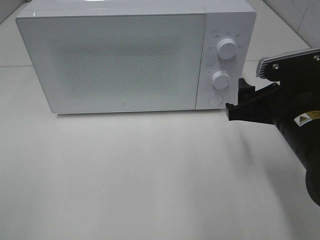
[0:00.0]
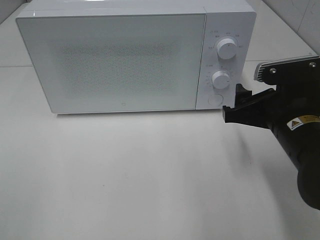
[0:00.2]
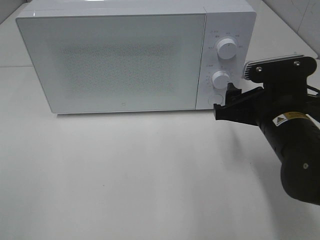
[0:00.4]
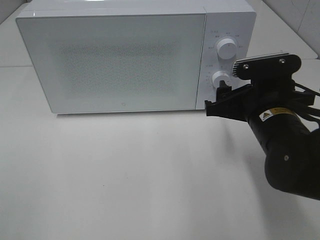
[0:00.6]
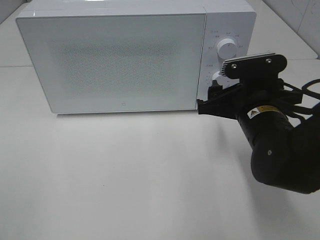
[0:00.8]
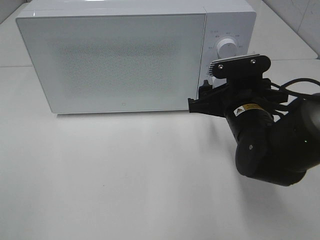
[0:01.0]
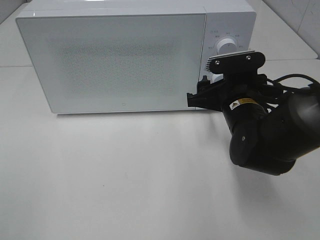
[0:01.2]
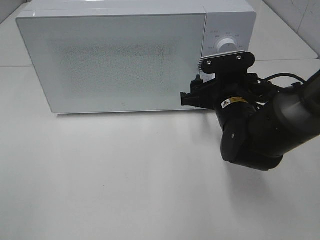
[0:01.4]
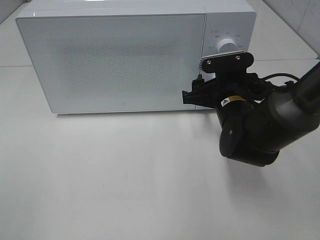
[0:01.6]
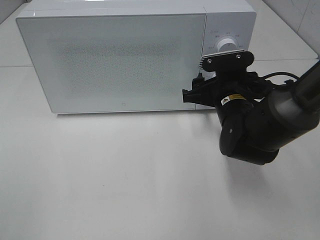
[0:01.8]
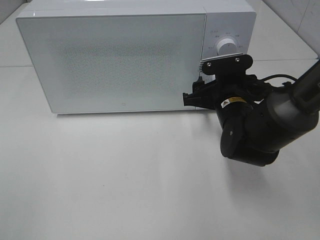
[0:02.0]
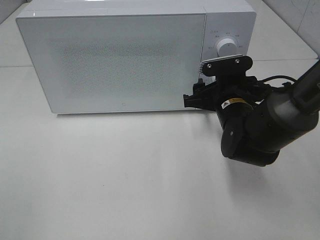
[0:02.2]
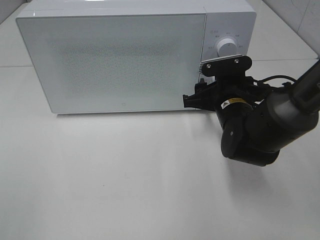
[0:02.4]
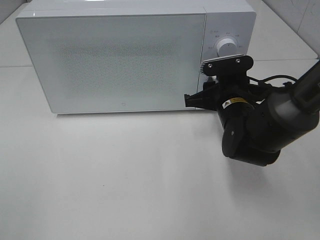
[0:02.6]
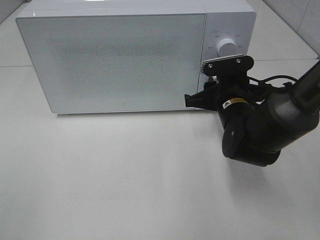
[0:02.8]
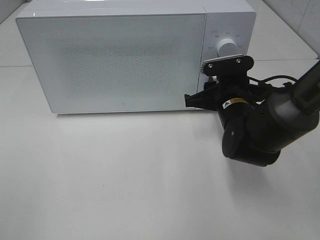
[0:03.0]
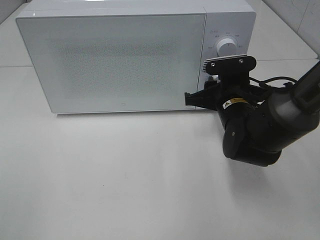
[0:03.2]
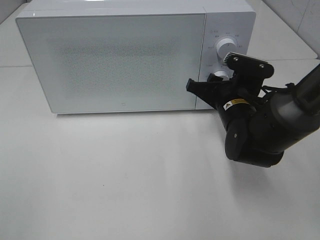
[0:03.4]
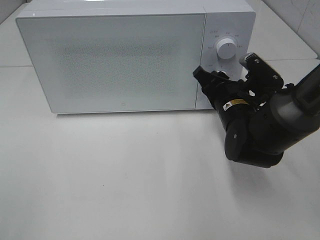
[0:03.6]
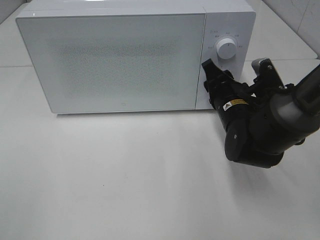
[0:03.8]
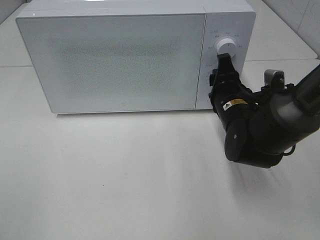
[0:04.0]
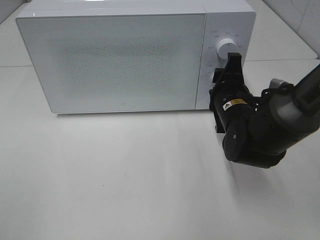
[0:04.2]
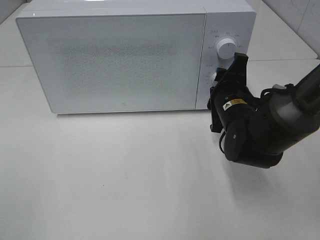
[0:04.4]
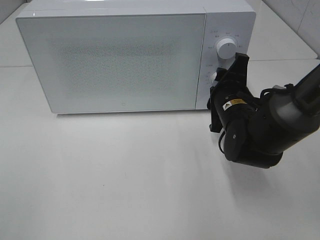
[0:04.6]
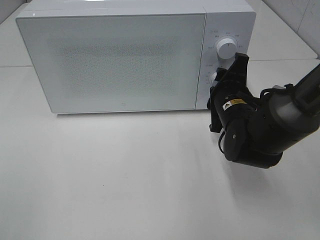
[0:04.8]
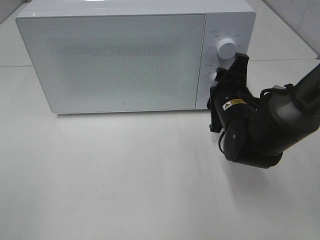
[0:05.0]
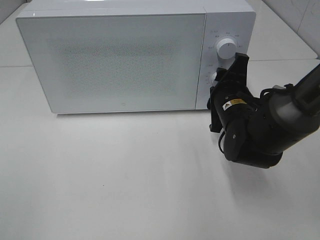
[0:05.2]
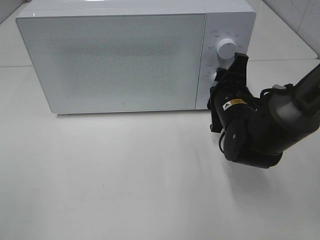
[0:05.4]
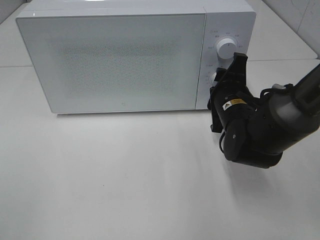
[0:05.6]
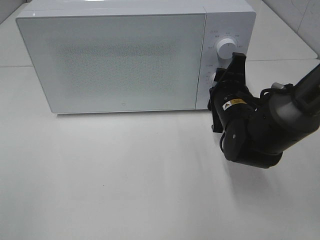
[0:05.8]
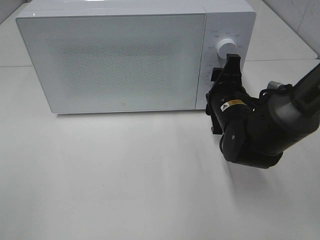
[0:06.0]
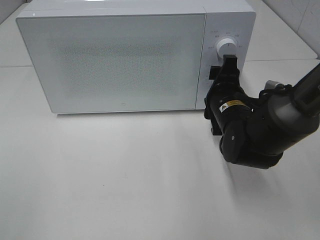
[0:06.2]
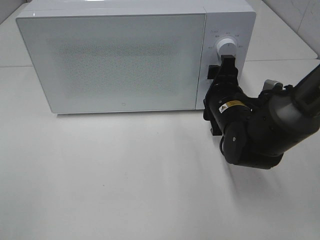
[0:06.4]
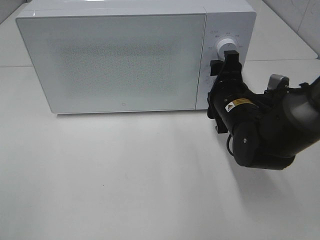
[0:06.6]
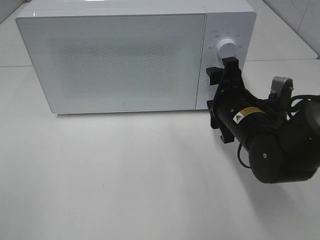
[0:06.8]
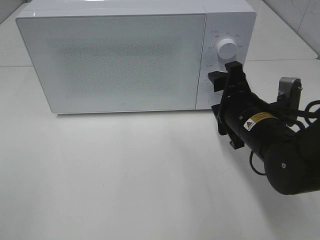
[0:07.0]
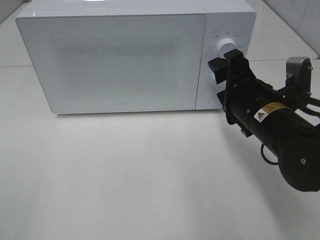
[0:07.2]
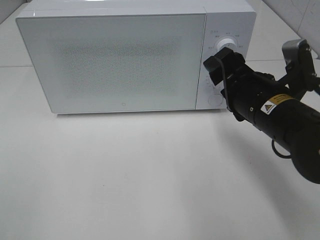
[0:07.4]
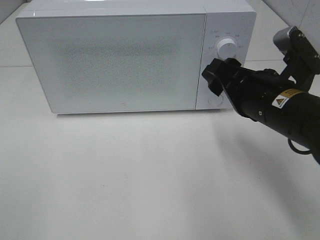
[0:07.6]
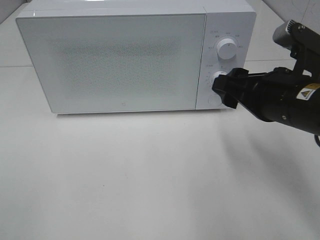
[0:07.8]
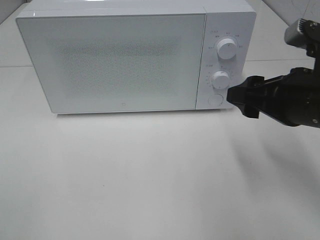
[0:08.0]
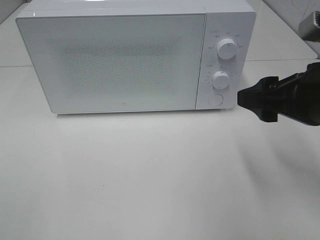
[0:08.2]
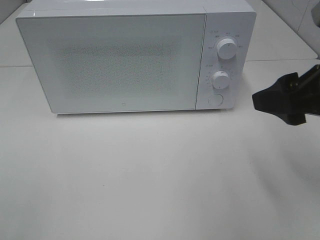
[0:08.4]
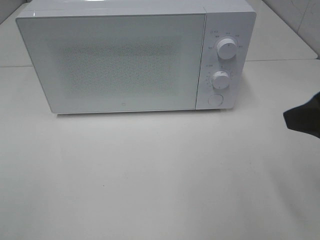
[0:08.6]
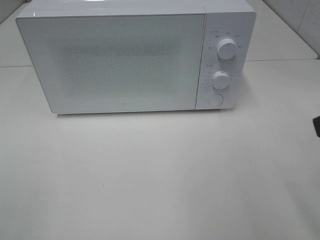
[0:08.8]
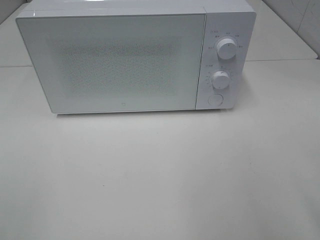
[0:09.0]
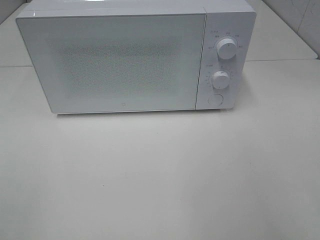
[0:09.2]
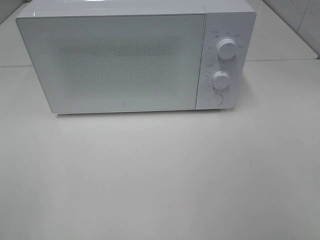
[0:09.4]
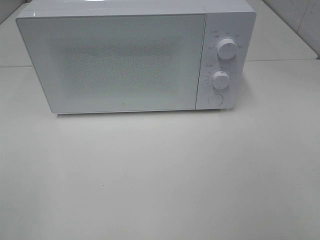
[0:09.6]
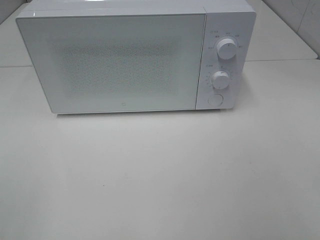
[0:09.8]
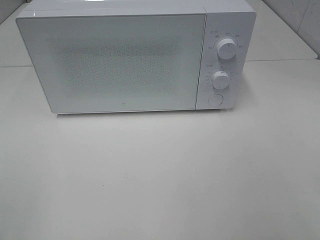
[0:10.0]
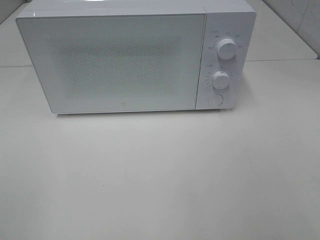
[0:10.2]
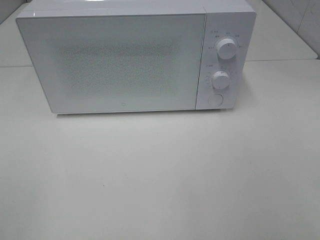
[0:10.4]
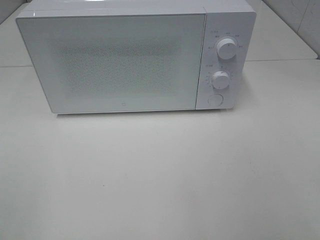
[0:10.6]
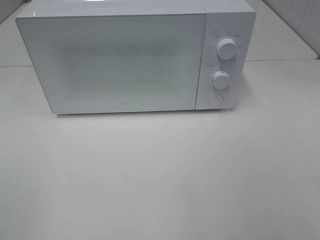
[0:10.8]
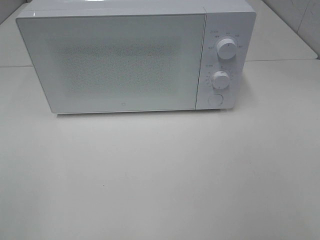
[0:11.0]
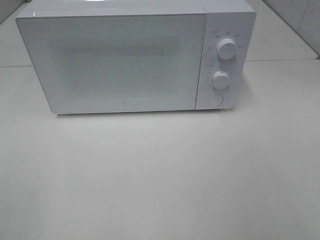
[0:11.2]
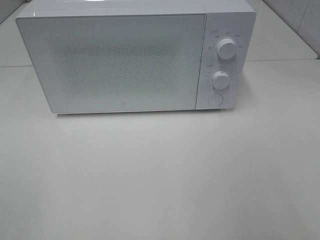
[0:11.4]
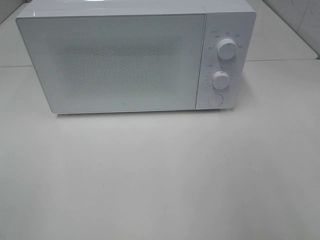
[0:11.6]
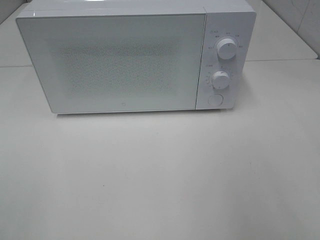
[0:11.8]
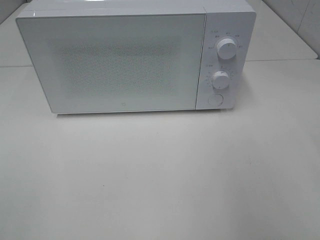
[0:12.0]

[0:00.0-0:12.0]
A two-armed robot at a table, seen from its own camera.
Task of the whole recording: Heat the burger.
Step, 0:00.0 to 0:06.0: Right hand: twist timer button.
0:00.0 to 0:01.6: The right gripper travels forward, to the left and downward by about 10 cm.
0:01.6 to 0:03.0: The right gripper closes up.
0:04.4 to 0:06.0: The grippers move only a little.
0:06.0 to 0:07.6: The right gripper shifts about 10 cm backward and upward.
0:07.6 to 0:09.0: The right gripper heads backward, upward and to the right, covering approximately 20 cm.

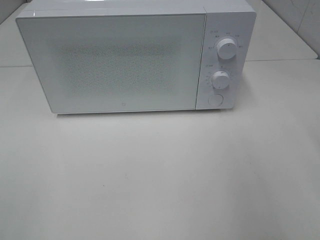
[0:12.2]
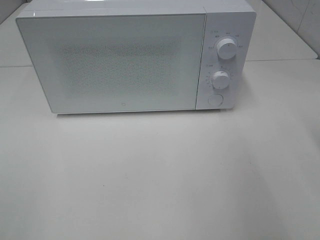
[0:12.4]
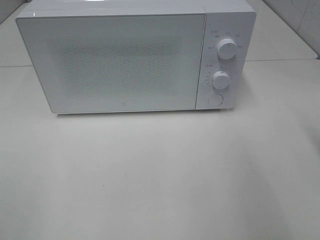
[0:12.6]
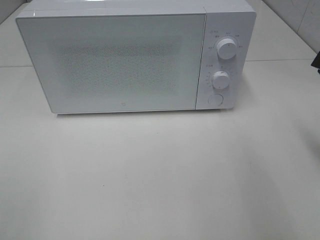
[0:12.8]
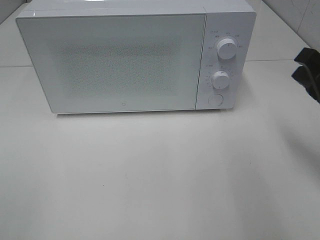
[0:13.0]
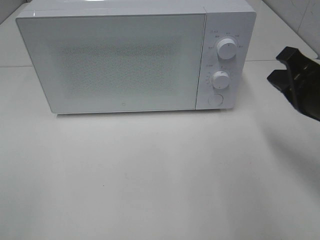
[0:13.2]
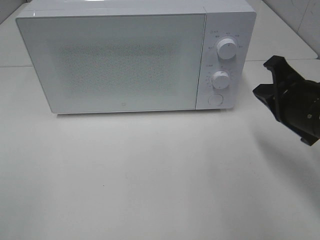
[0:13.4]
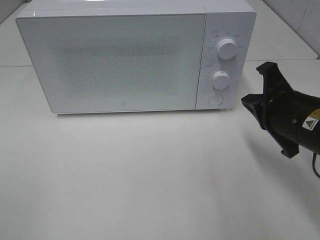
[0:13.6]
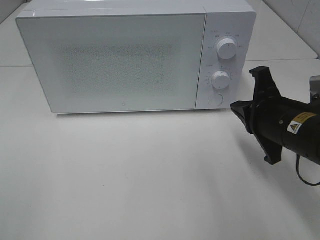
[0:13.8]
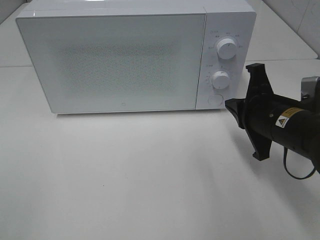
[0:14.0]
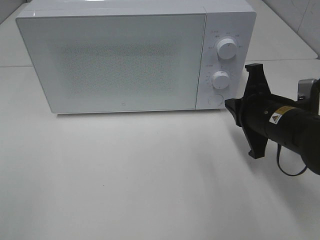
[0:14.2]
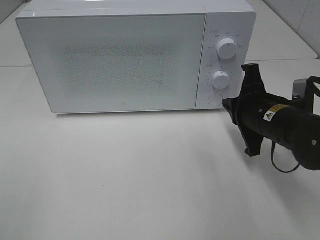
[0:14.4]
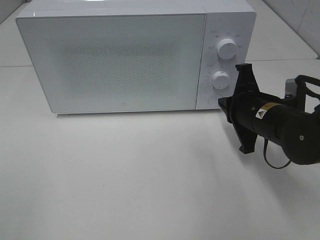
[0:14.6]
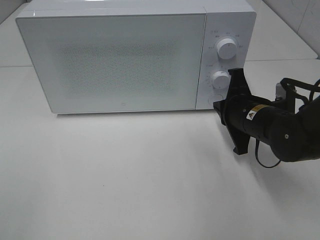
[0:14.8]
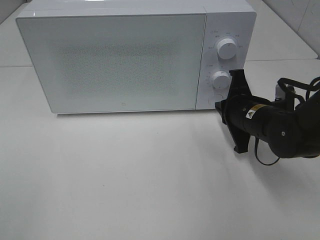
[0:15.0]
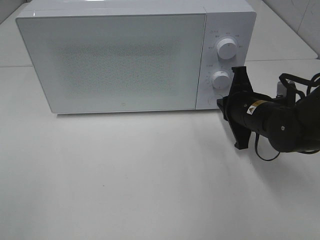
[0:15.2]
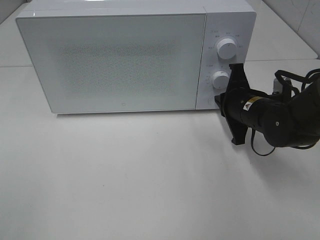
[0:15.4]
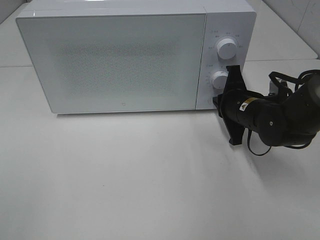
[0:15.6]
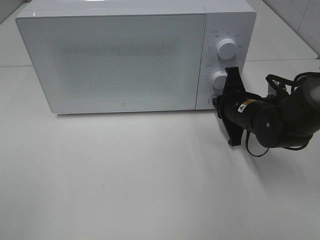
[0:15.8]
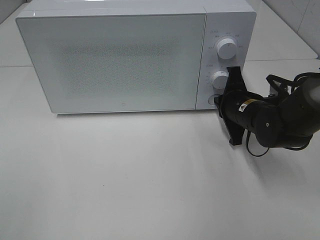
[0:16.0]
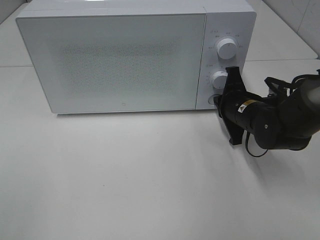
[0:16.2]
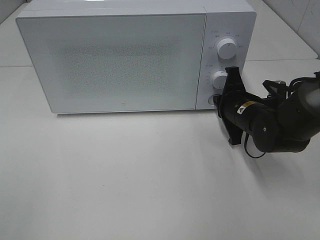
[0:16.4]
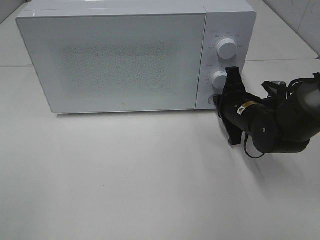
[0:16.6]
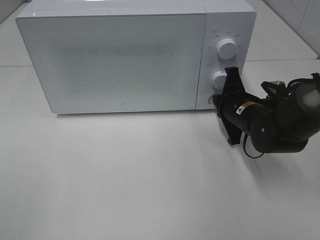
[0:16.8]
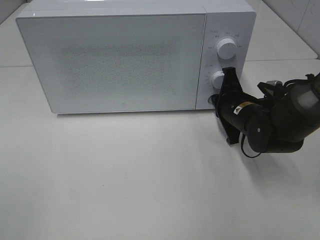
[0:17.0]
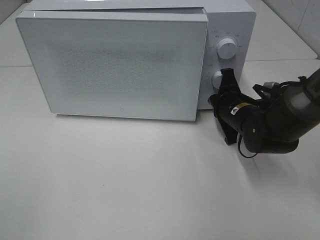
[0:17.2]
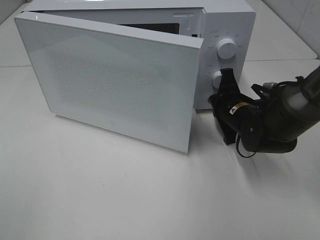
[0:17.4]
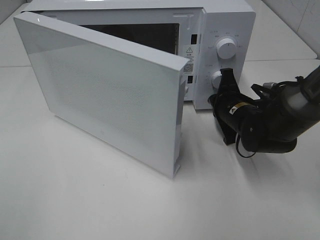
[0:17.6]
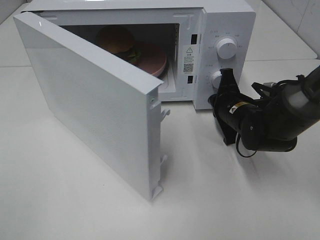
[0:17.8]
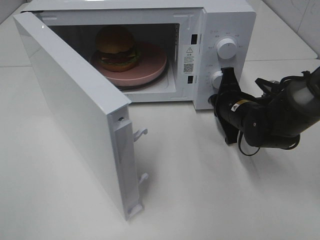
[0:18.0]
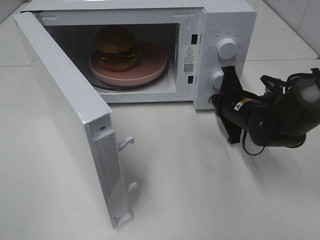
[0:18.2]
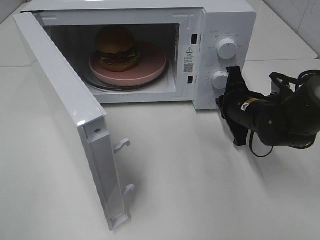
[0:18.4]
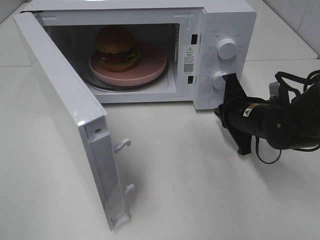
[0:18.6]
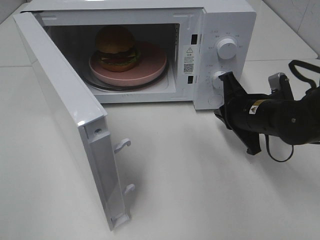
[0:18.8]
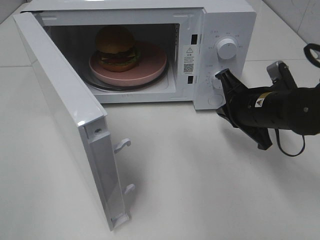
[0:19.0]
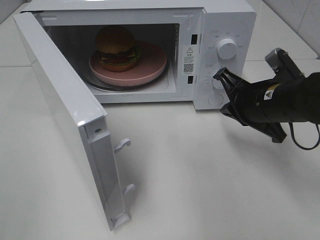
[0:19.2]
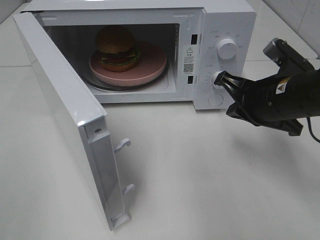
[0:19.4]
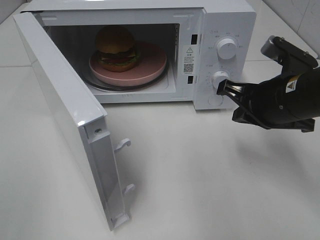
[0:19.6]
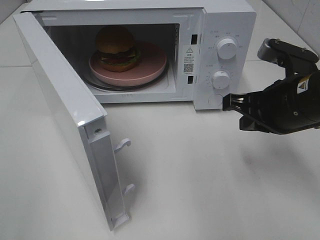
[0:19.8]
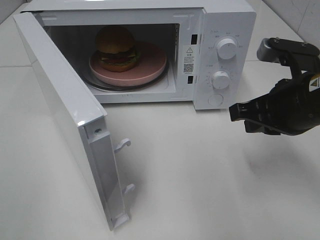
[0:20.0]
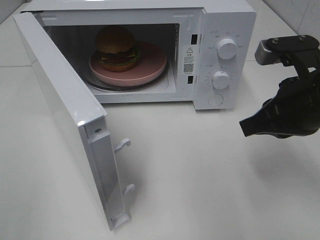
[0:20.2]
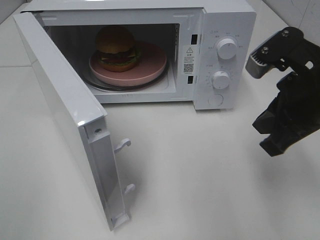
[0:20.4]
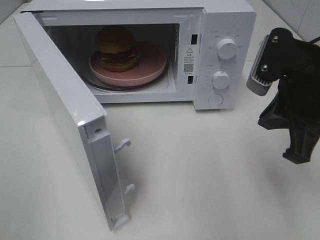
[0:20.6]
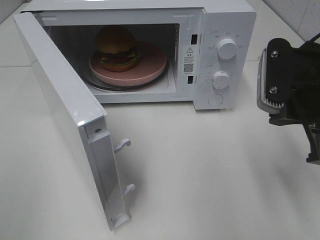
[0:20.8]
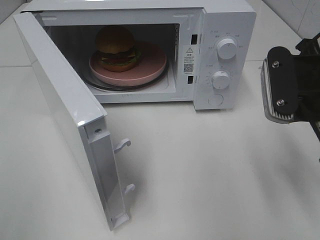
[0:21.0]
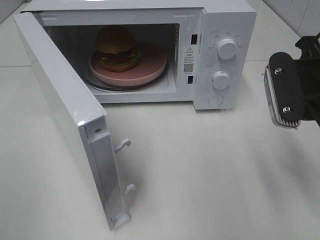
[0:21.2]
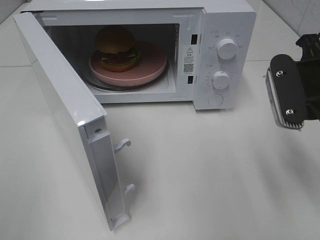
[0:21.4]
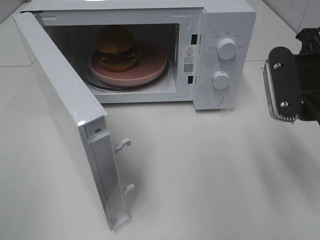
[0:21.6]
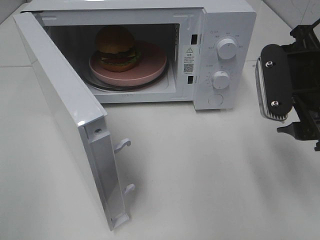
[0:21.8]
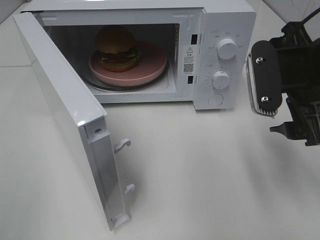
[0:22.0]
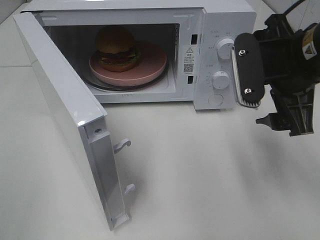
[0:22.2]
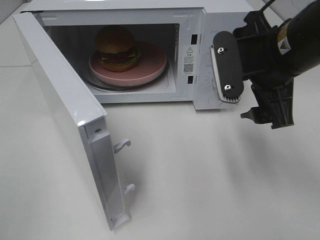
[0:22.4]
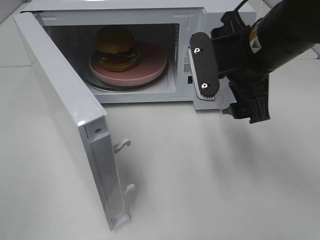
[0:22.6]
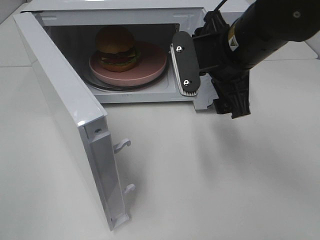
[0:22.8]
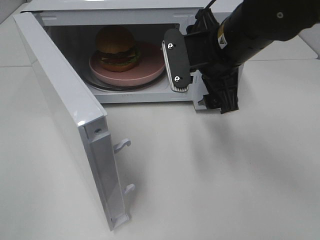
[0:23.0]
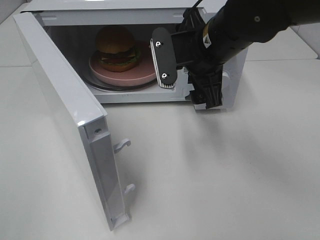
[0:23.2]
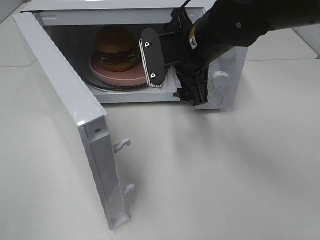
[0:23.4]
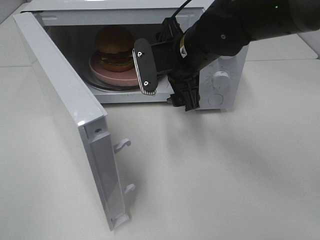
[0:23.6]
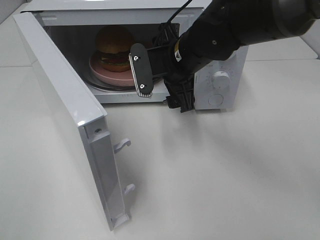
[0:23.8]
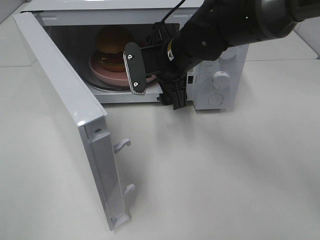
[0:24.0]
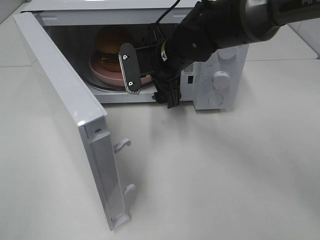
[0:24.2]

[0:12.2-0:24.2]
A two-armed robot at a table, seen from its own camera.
Task of the whole recording: Heat the burger.
Step, 0:12.2 to 0:18.4: Right hand: press the switch.
0:12.2 to 0:13.8: The right gripper goes about 20 cm downward, to the left and forward, and closes up.
0:13.8 to 0:15.2: The right gripper heads forward, covering some 10 cm.
0:15.2 to 0:16.6: The grippers make only small movements.
0:18.2 to 0:19.8: The right gripper travels upward and backward by roughly 15 cm.
0:19.8 to 0:21.2: The right gripper moves about 5 cm.
0:21.2 to 0:22.6: The right gripper is displaced to the left by roughly 10 cm, and opens up.
0:22.6 to 0:24.2: The right gripper travels forward, to the left and downward by approximately 15 cm.
